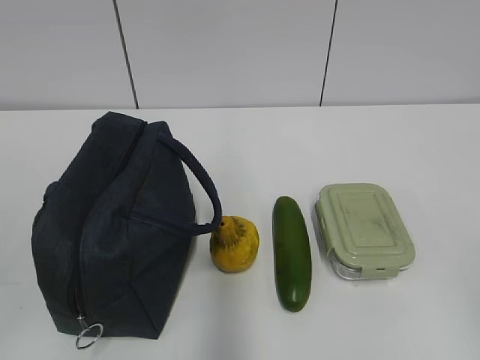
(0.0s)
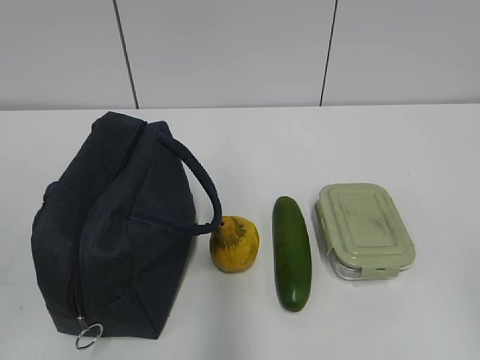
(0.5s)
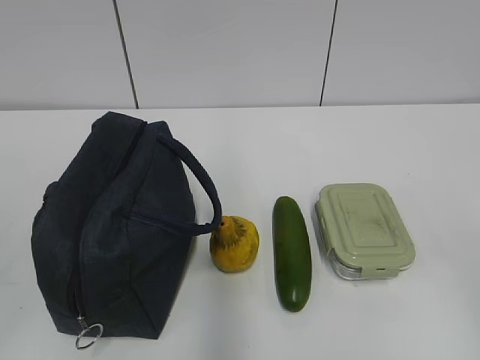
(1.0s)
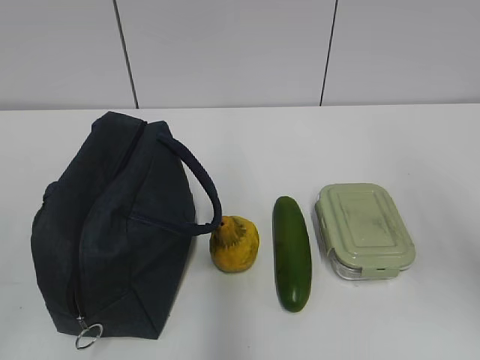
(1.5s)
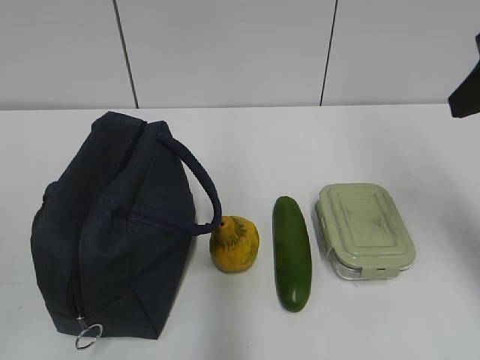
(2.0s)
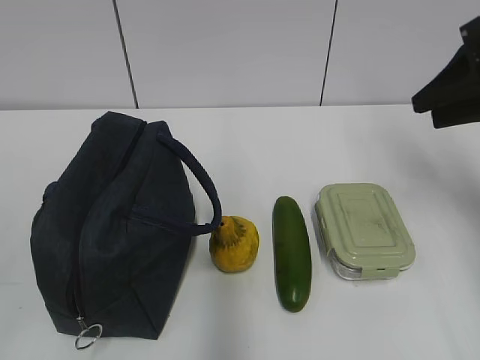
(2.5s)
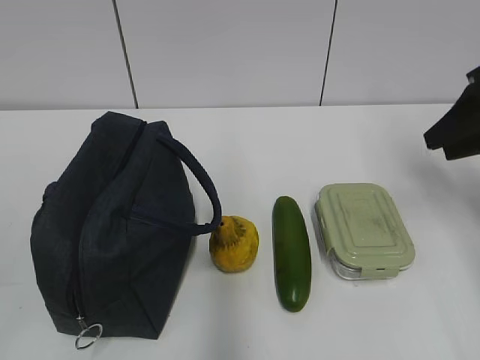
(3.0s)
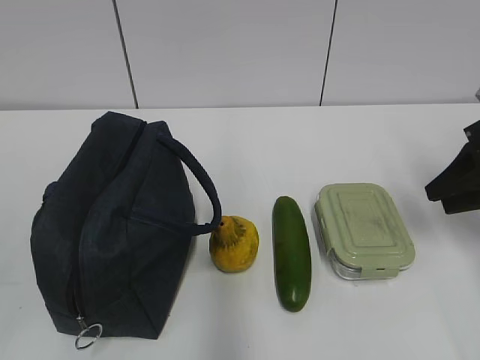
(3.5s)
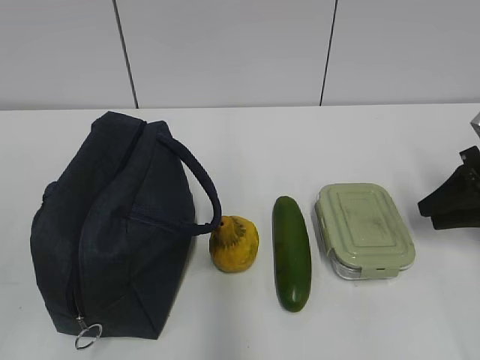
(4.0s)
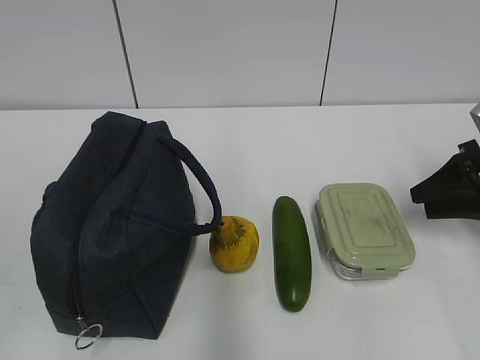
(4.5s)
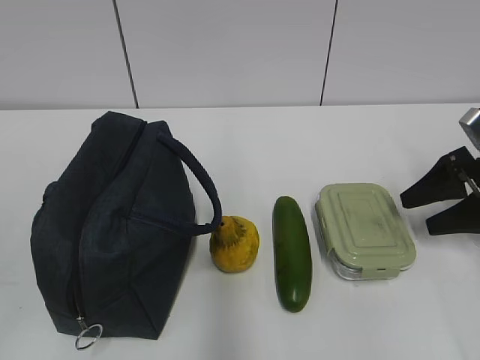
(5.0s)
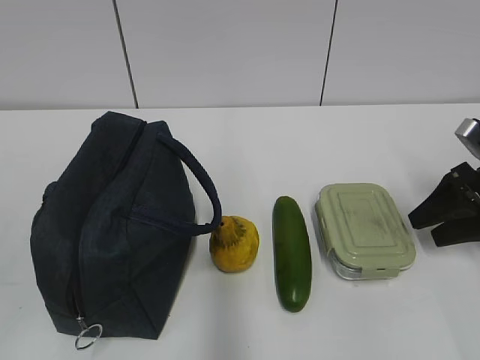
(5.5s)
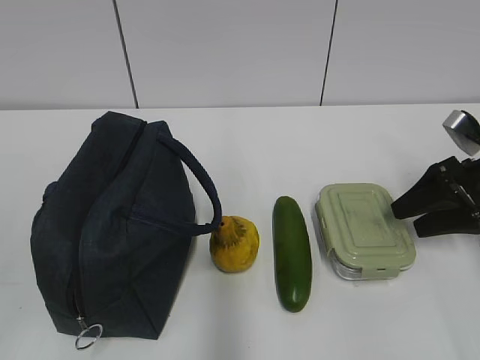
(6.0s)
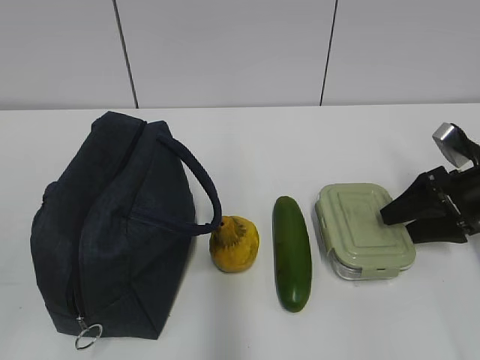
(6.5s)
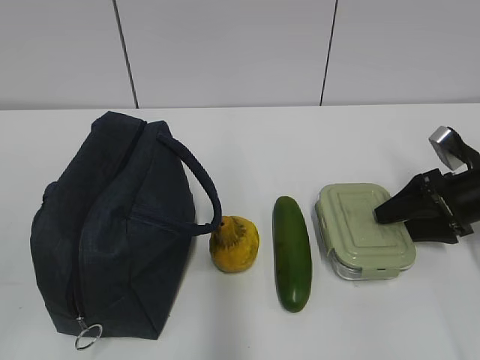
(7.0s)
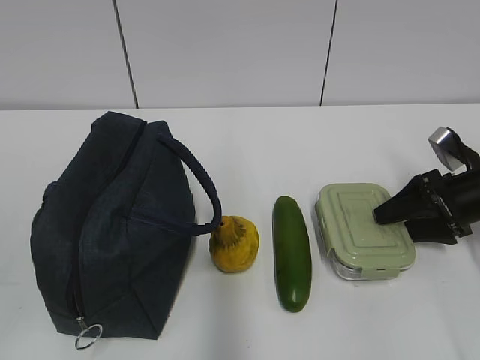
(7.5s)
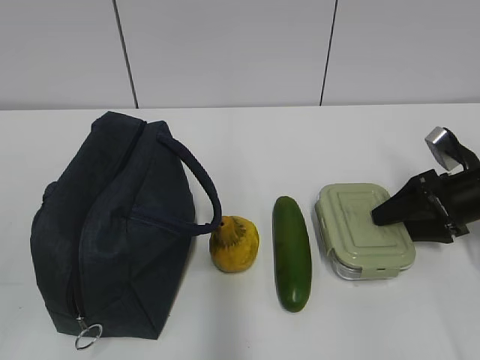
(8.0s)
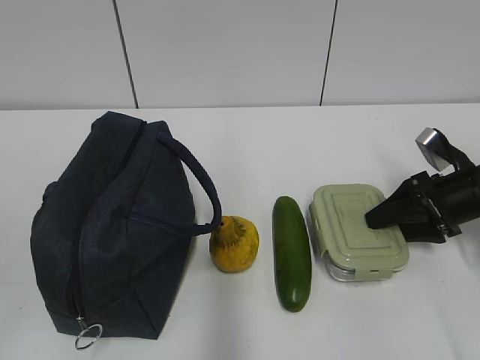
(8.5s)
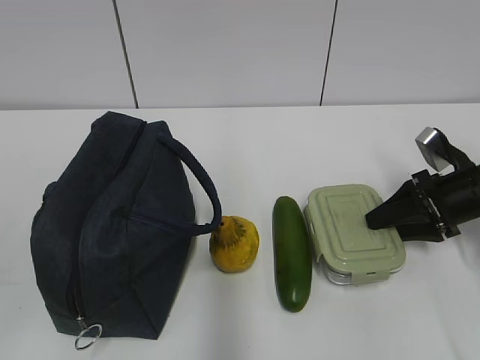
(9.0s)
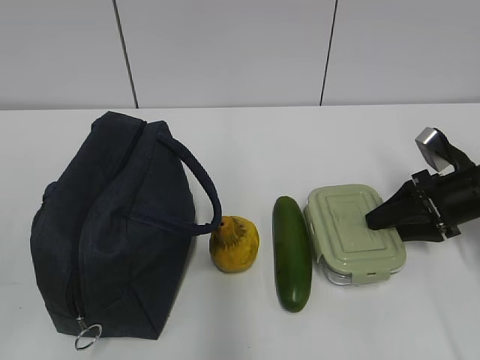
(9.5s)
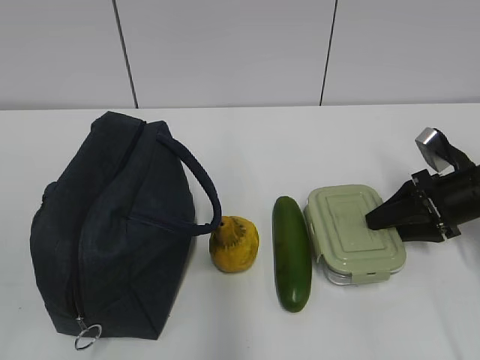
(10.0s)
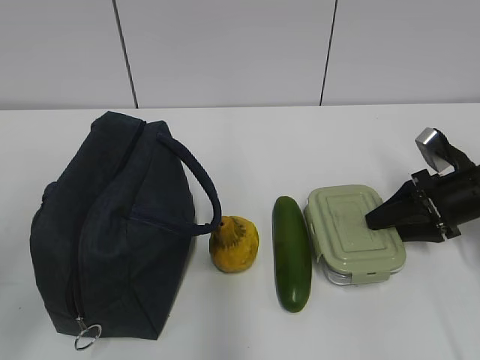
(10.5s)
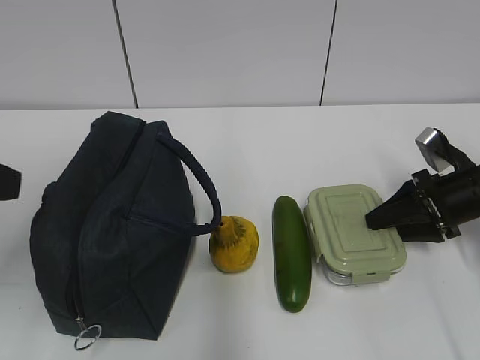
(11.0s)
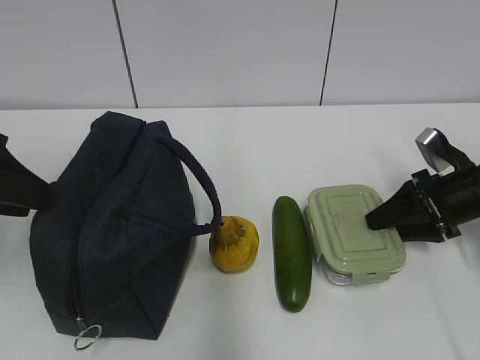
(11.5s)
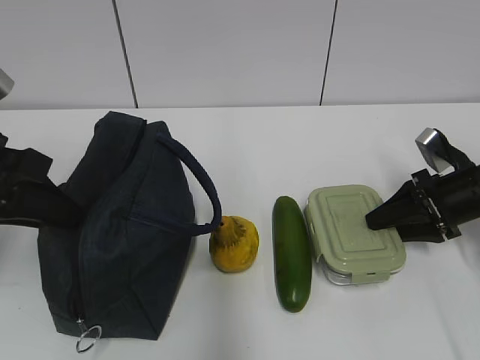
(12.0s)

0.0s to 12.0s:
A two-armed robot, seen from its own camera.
2.0s to 4.0s: The right gripper shifts some 25 cm downward, to the right and forward.
4.0s to 6.0s: The right gripper opens up.
6.0s to 8.0s: The grippers move only a little.
8.0s to 10.0s: Neither gripper changes place.
10.0s to 12.0s: The left gripper goes approximately 25 cm forward, and opens, then closes once more.

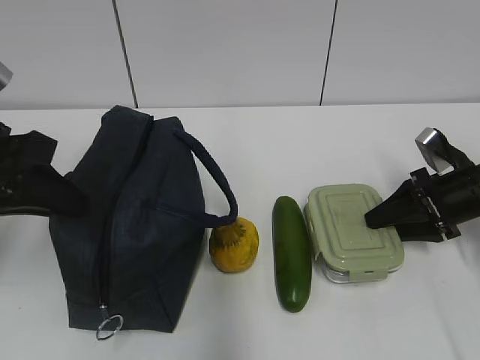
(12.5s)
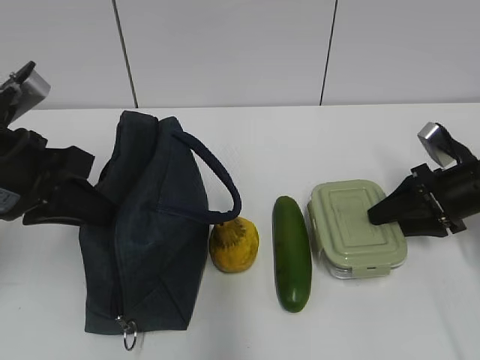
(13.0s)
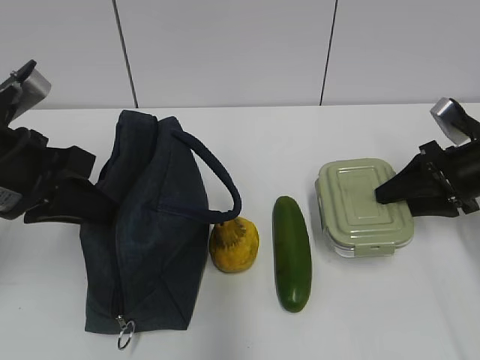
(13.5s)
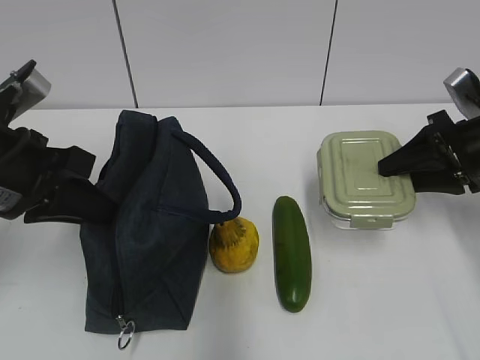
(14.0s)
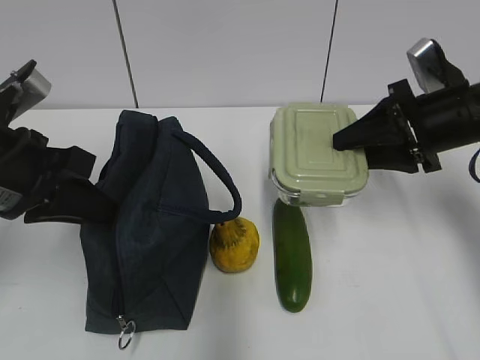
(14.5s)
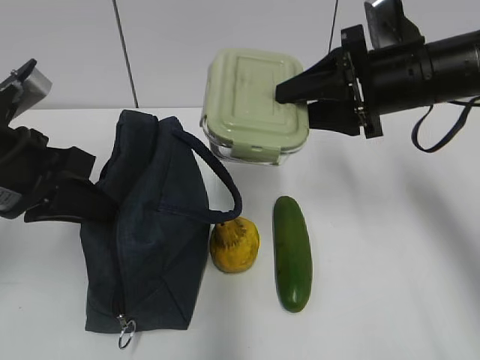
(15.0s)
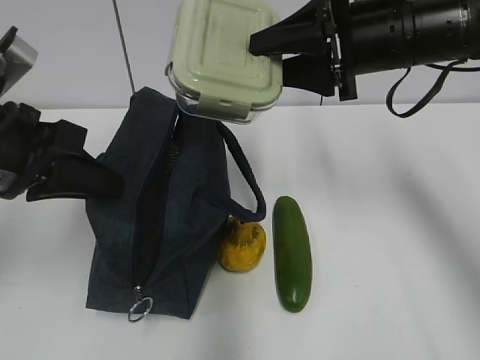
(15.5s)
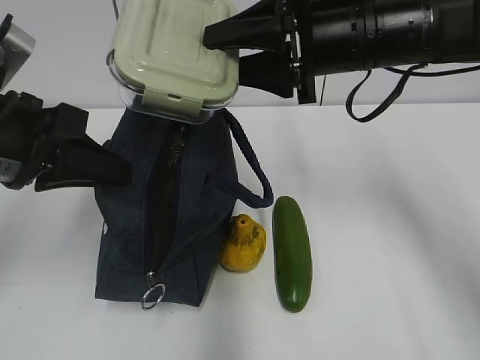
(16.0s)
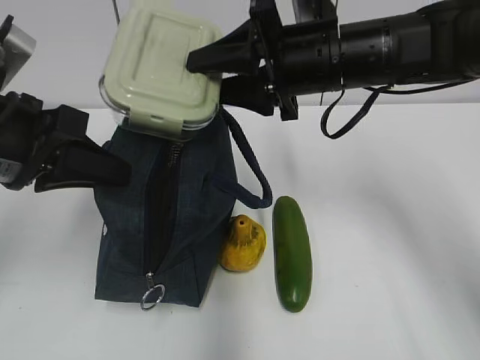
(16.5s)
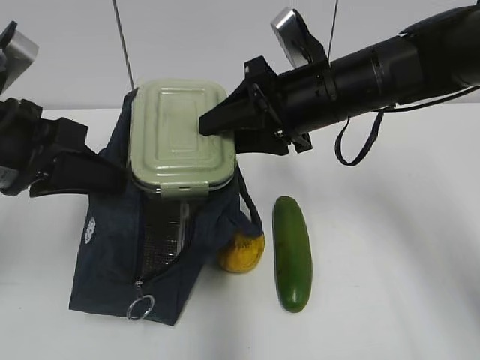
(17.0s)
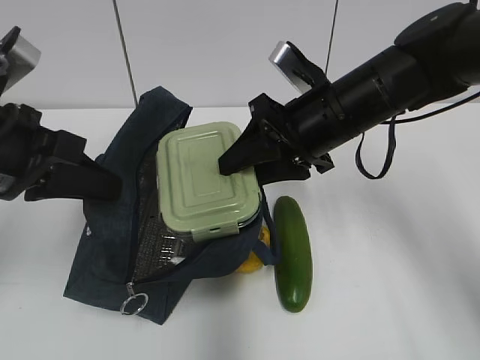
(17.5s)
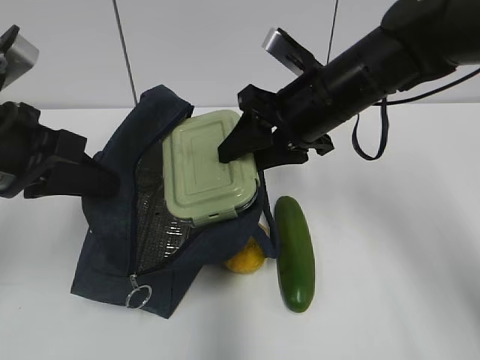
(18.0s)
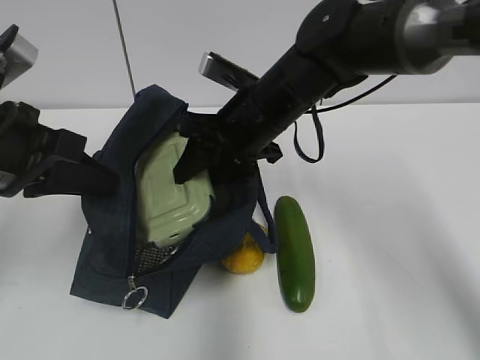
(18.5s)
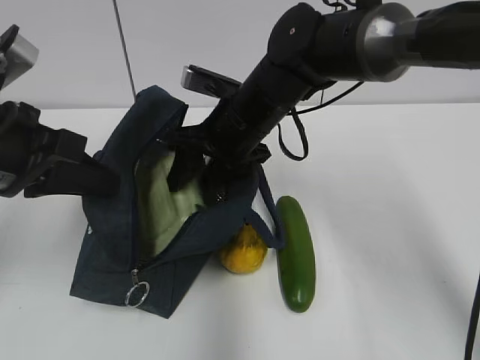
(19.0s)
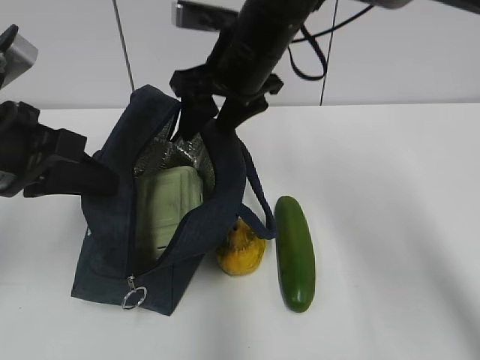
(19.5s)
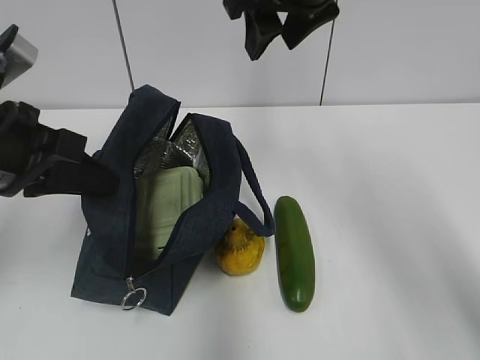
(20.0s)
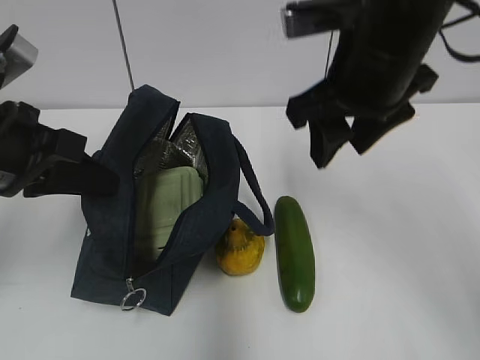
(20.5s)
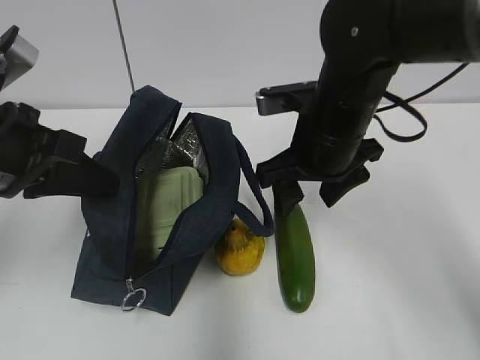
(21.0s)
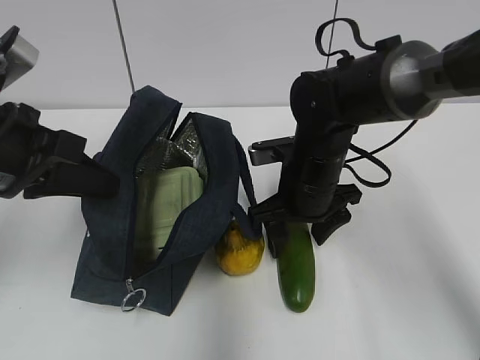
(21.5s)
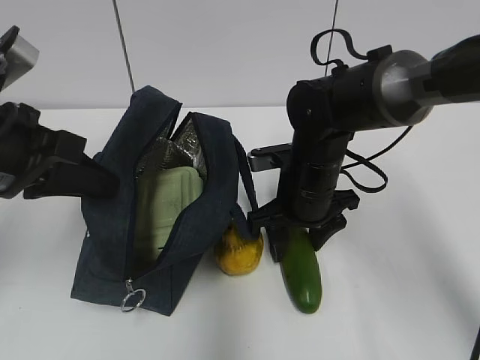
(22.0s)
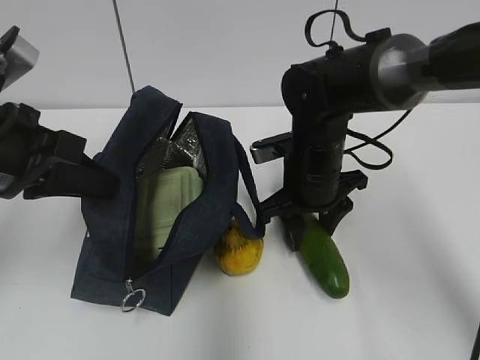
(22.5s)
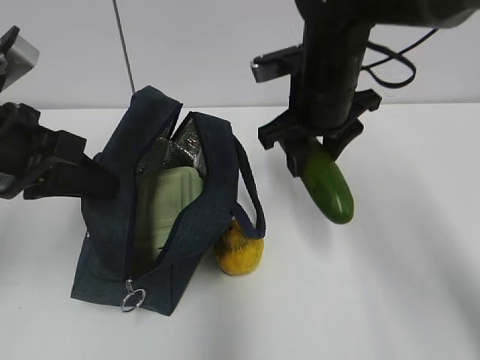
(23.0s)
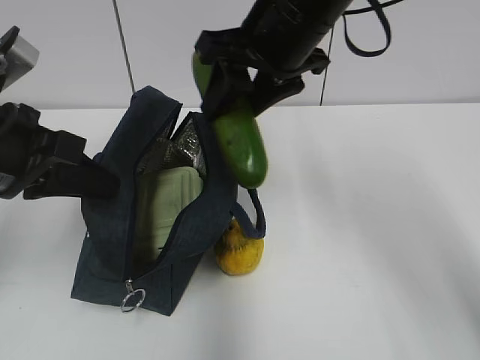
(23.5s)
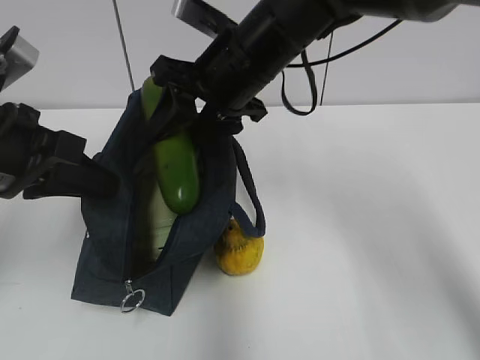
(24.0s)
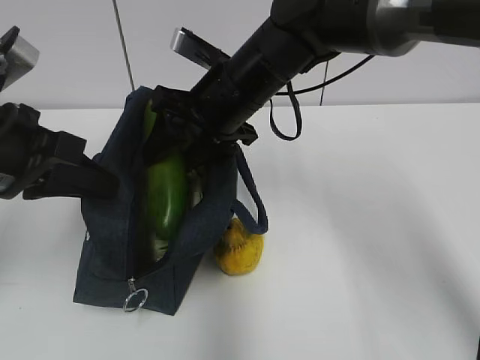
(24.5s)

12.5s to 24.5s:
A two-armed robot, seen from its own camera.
Step, 17.0s to 19.0s: Place it into the bag with your right hand.
Step, 19.5s to 22.0s: Grab the cucumber with your right hand.
12.5s to 14.5s: The right gripper moves upward and to the left, approximately 10 cm.
14.5s to 16.5s: The right gripper is displaced to the left and upward by approximately 15 cm.
16.5s to 18.5s: The right gripper goes about 10 cm downward and to the left.
18.5s to 20.5s: The right gripper is displaced upward, to the right and backward by about 15 cm.
20.5s to 22.5s: The right gripper shifts roughly 15 cm downward.
22.5s to 24.5s: The right gripper is displaced upward and to the left by about 10 cm.

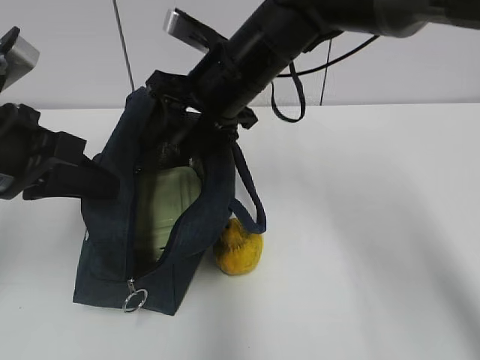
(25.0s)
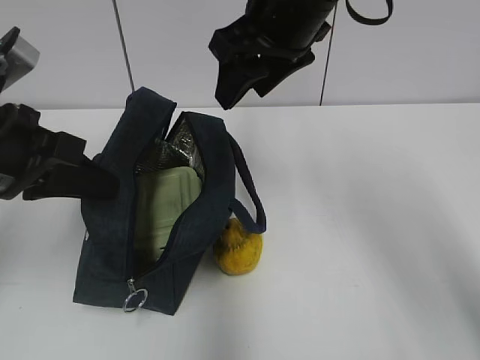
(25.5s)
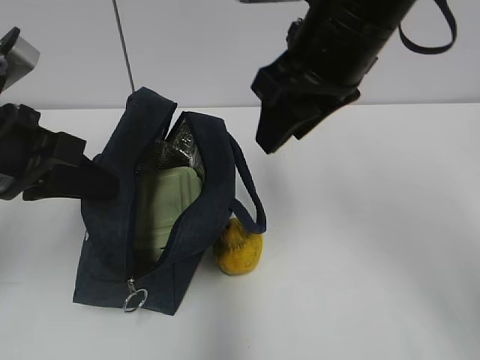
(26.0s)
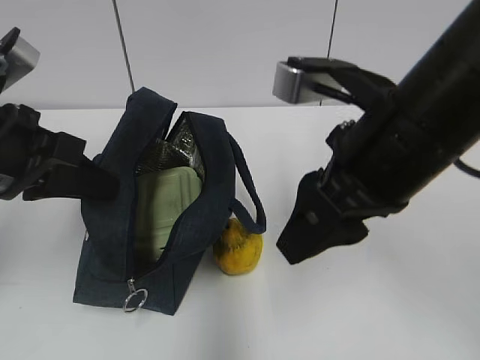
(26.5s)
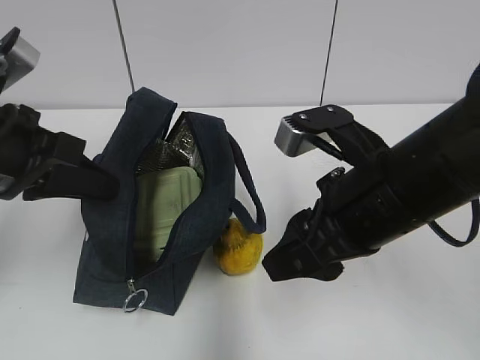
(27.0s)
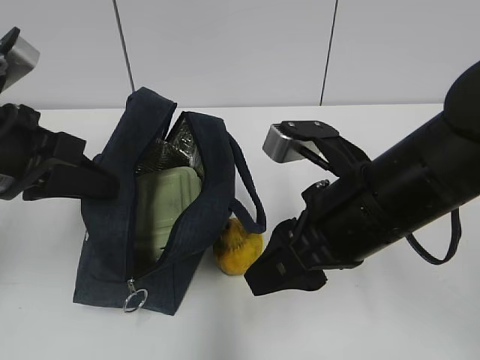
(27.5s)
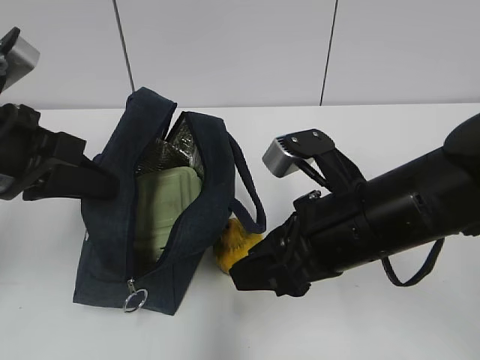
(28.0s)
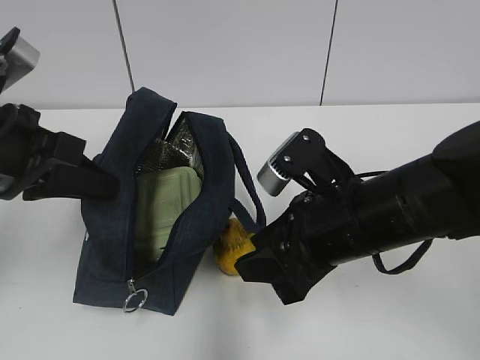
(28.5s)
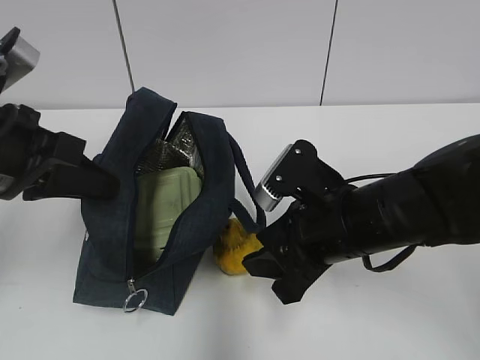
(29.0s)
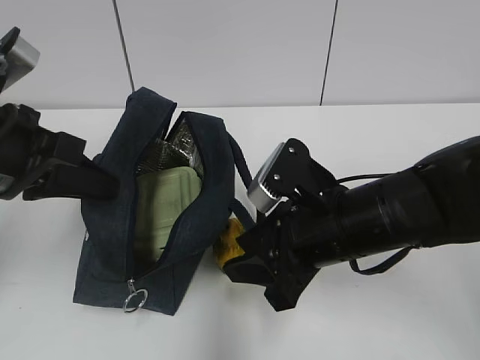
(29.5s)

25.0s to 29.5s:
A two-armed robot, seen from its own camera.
25.0s to 27.0s: The right gripper is displaced backward and to the right by some 20 cm.
27.0s to 29.5s: The right gripper shifts about 5 cm downward.
